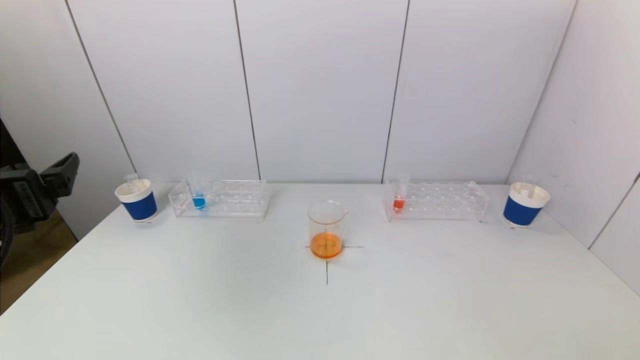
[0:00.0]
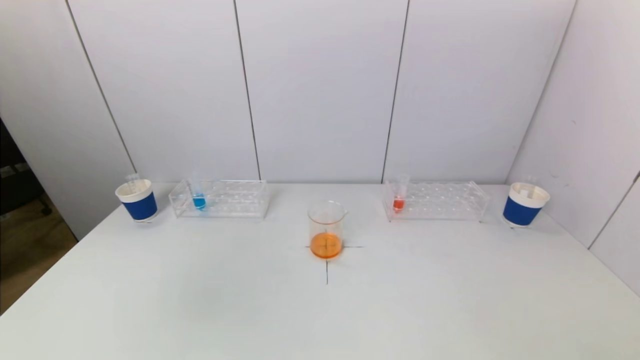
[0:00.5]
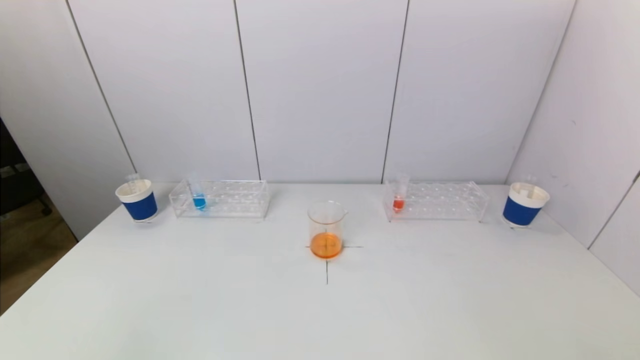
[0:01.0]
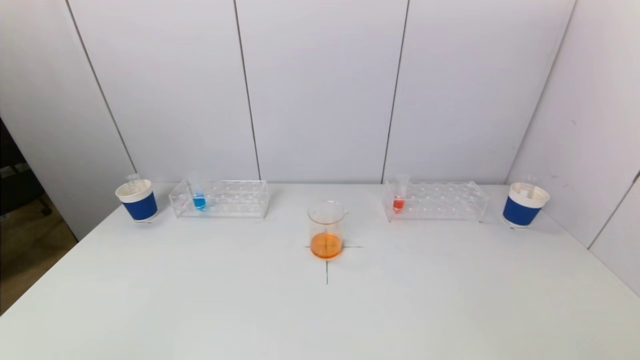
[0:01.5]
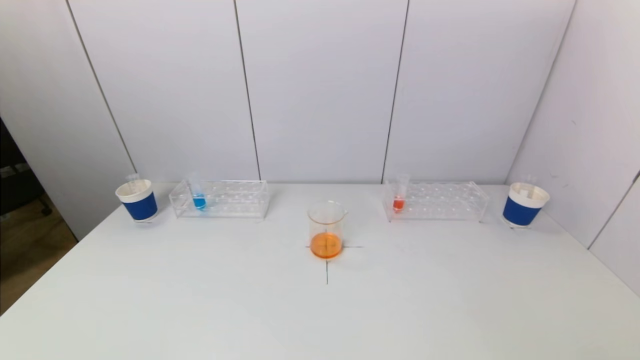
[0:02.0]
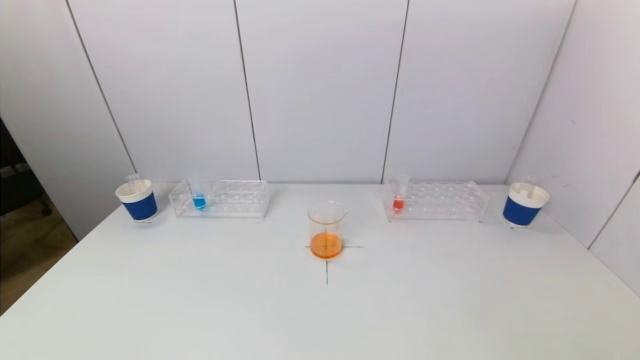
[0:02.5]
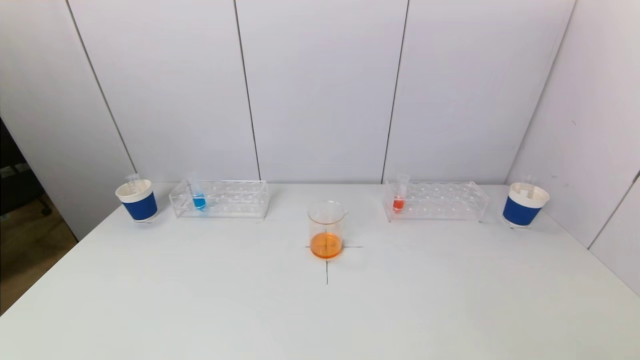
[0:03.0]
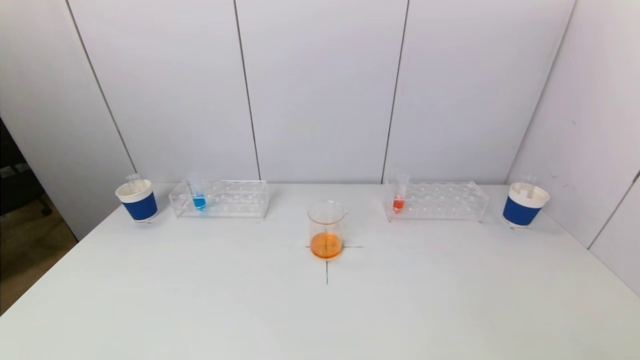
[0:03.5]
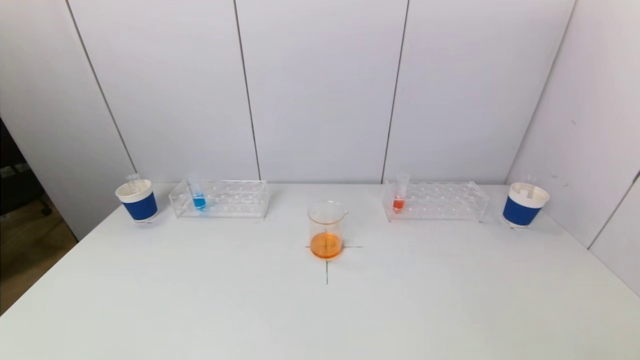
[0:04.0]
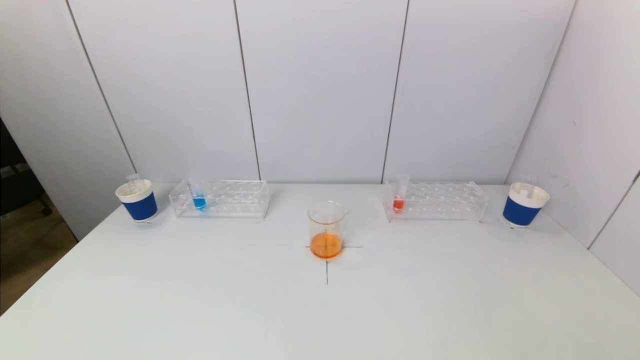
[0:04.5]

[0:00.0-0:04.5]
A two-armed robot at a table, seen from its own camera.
Task of the whole recording: pick up a test tube with pigment on left test tube rack and a test tube with pigment on right test tube rack by grippers and pour them into the beaker.
0:00.0 to 0:02.0: The left gripper moves backward and downward, about 20 cm.

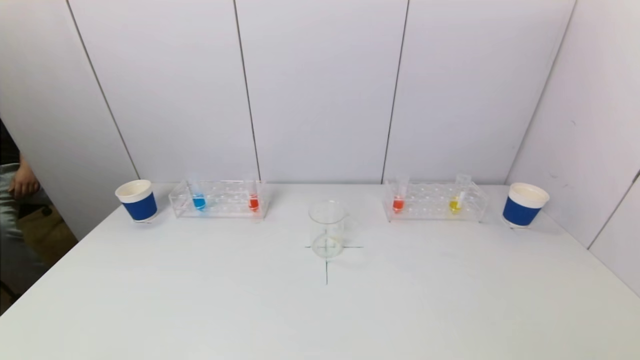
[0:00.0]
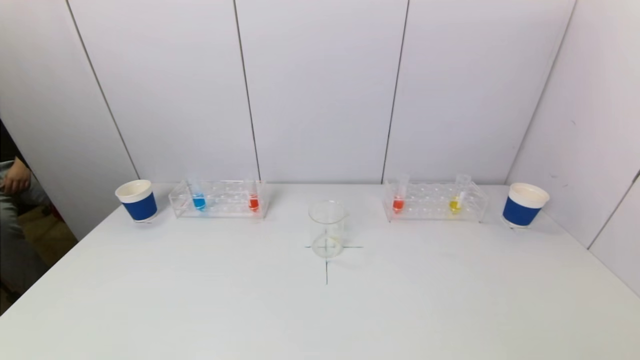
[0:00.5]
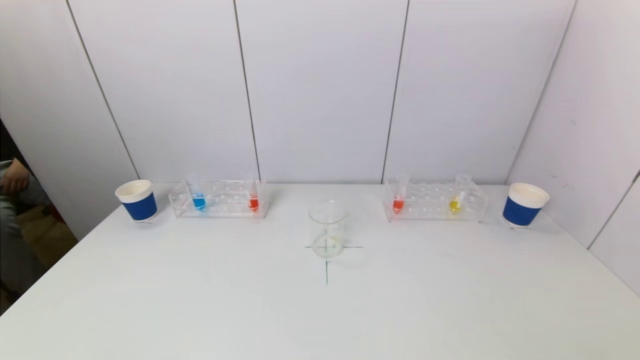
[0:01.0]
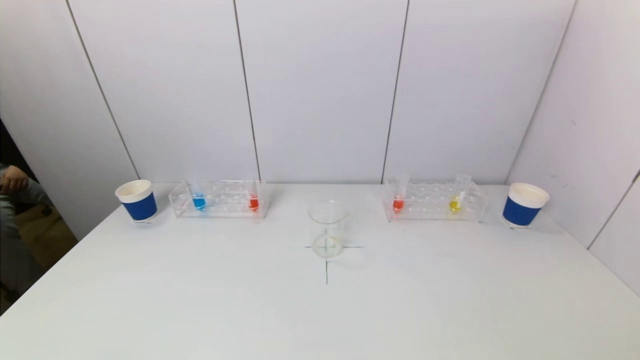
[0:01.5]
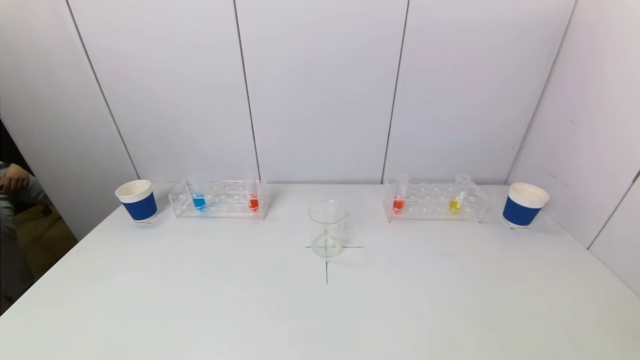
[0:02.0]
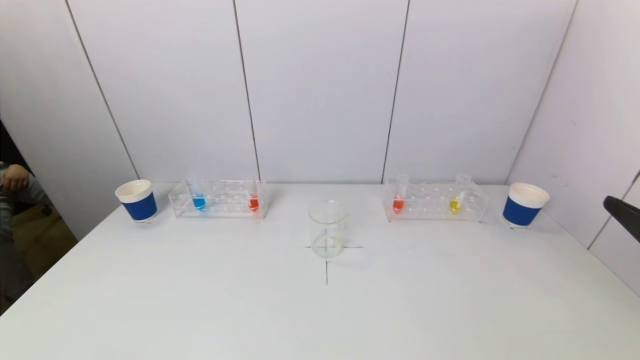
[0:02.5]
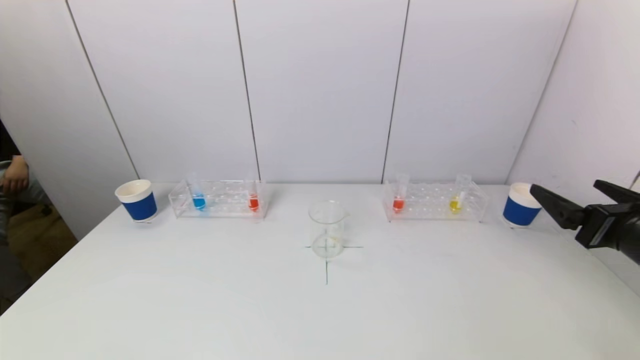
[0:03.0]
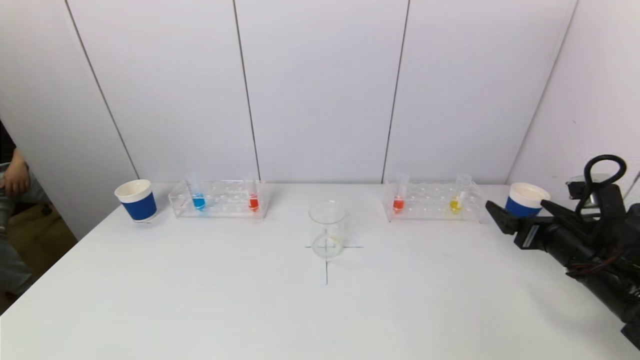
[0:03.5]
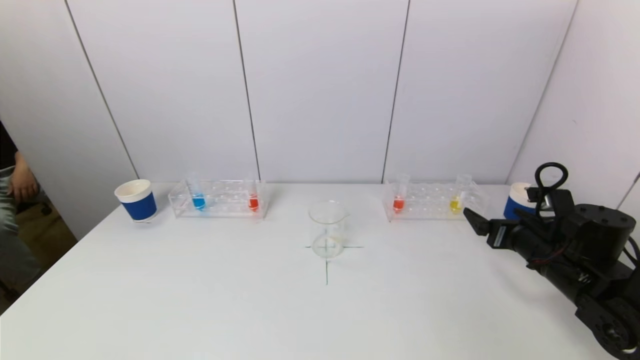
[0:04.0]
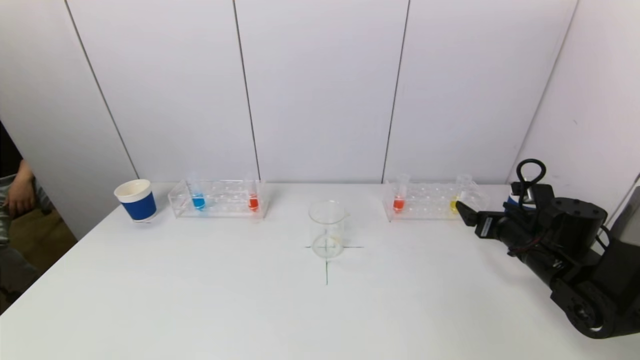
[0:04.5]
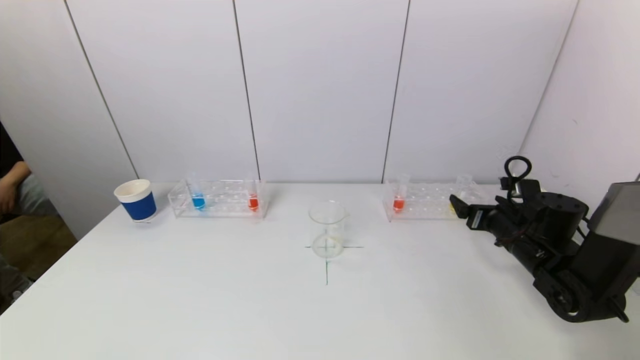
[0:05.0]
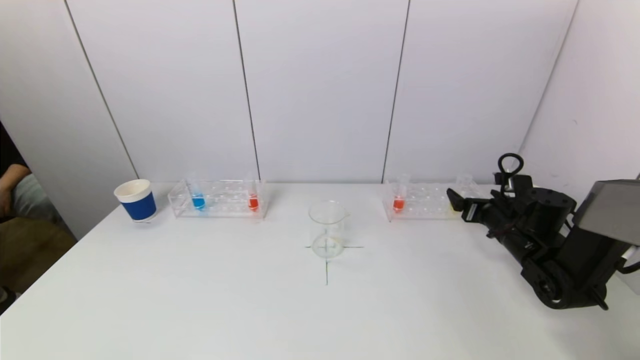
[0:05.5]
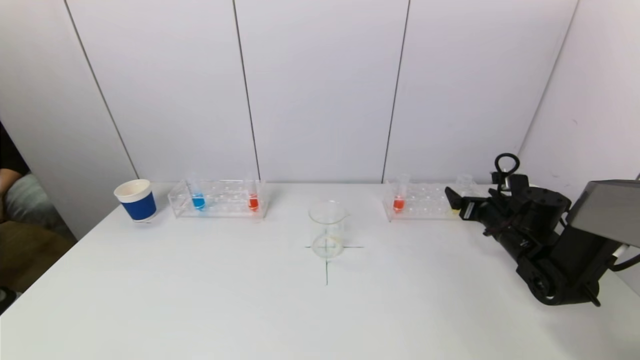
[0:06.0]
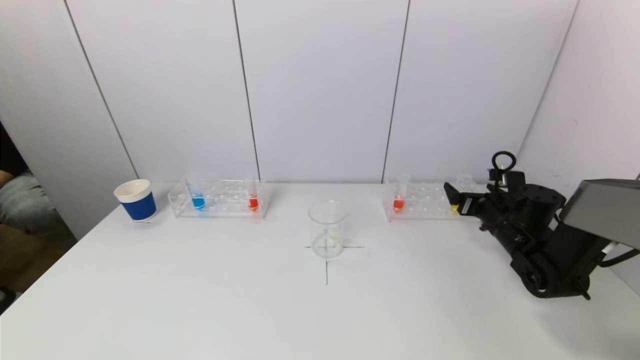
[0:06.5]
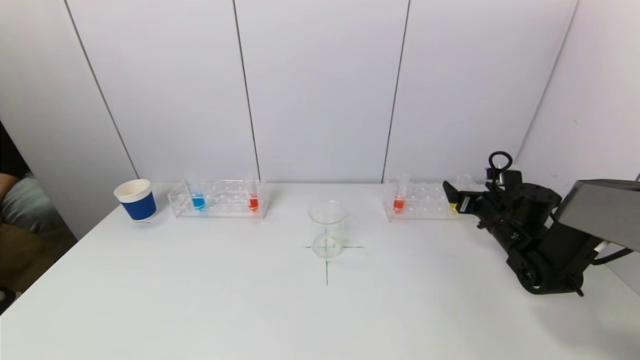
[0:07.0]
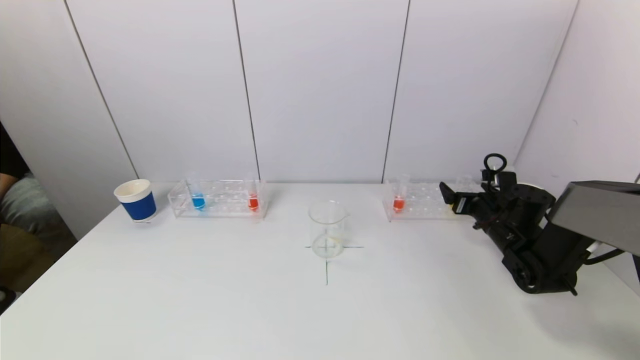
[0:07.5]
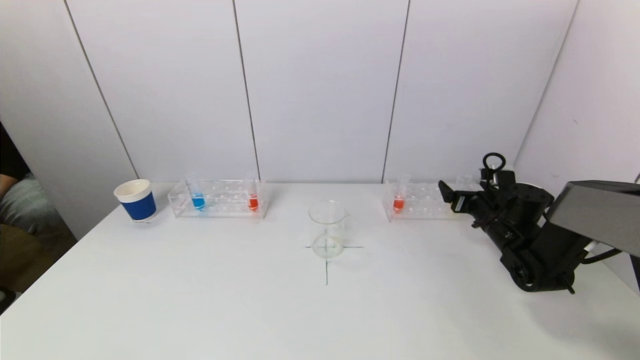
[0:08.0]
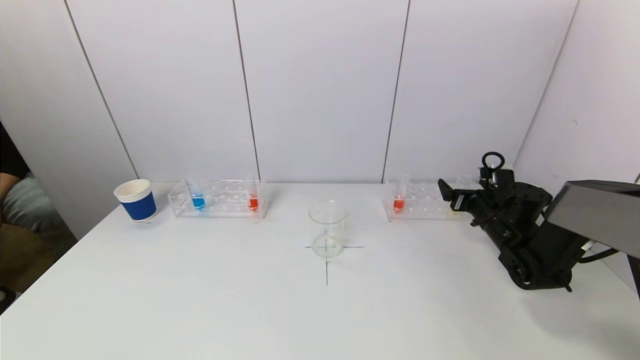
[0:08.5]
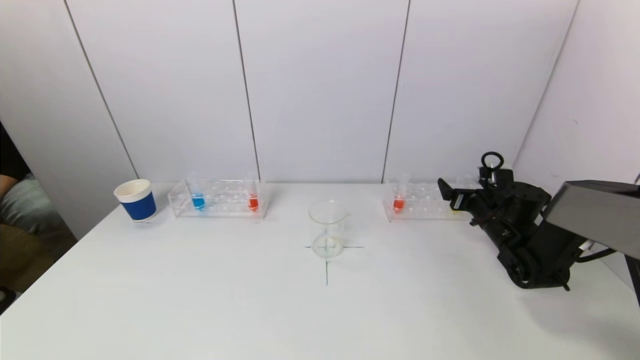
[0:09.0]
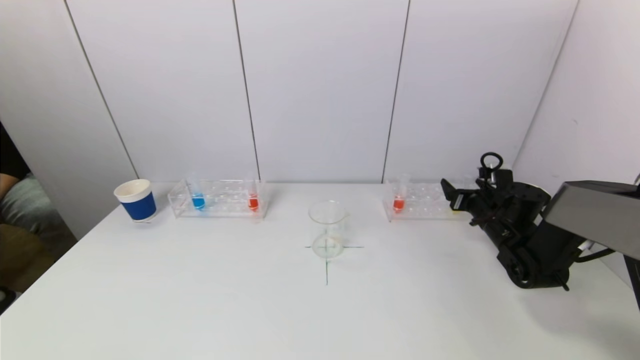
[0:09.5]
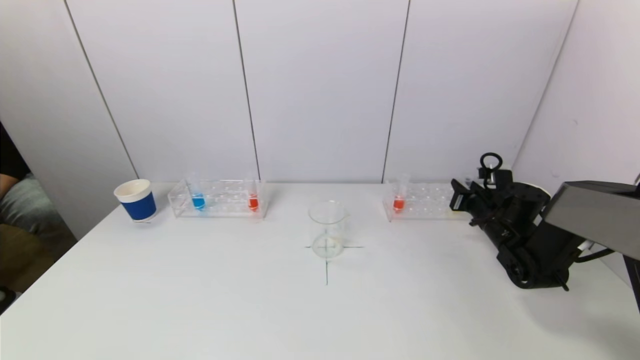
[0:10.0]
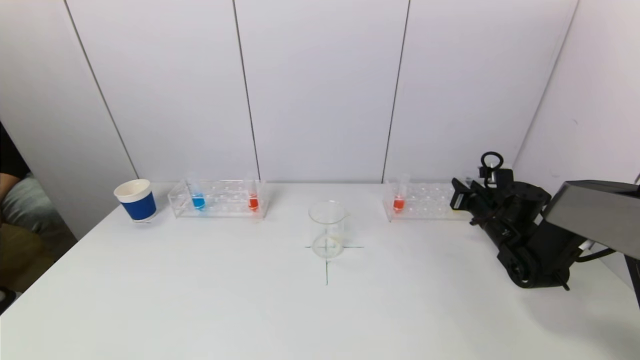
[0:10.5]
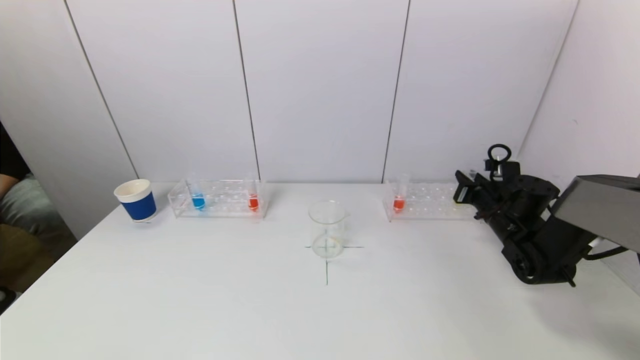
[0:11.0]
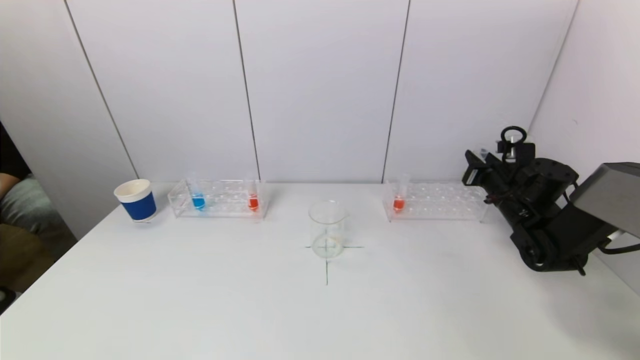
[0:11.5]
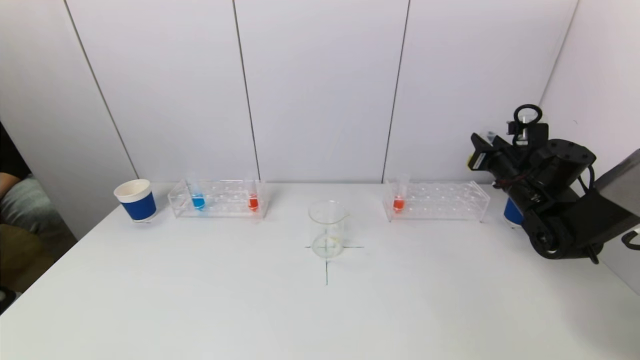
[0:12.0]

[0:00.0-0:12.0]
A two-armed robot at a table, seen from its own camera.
Task of the whole recording: pick up a test tube with pigment on left test tube rack and a test tube with pigment on right test tube rack by grippers and pour them into the beaker.
Step, 0:00.0 to 0:10.0: Grasp the yellow reagent with the right gripper.
0:02.0 to 0:04.0: The right gripper travels forward and downward by about 30 cm.
0:04.0 to 0:06.0: The right gripper shifts some 10 cm forward.
0:06.0 to 0:08.0: The grippers make only small movements.
0:08.0 to 0:10.0: The right gripper closes its fingers.
0:10.0 to 0:12.0: The right gripper goes some 10 cm upward.

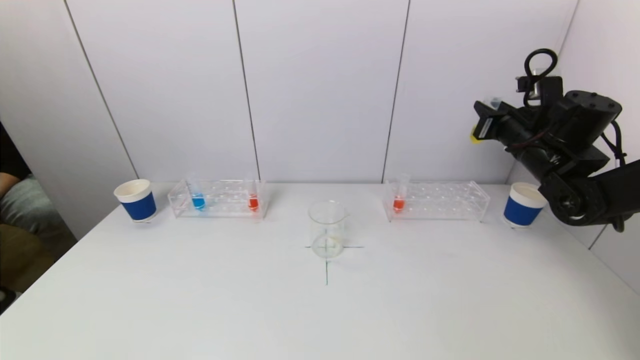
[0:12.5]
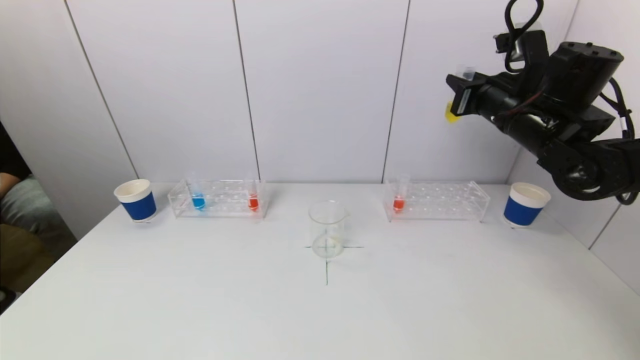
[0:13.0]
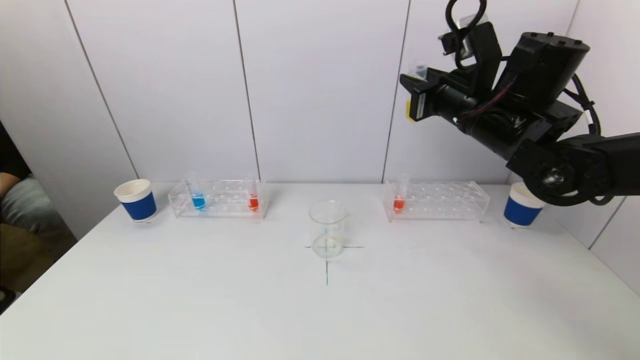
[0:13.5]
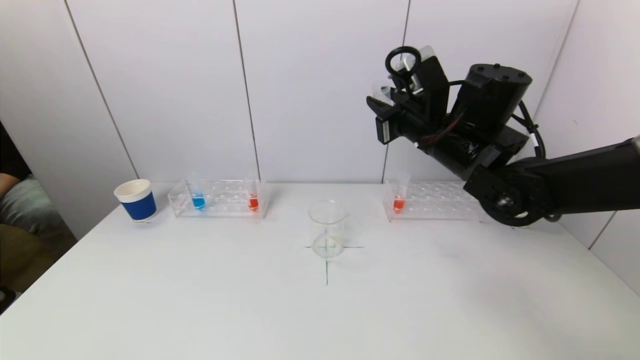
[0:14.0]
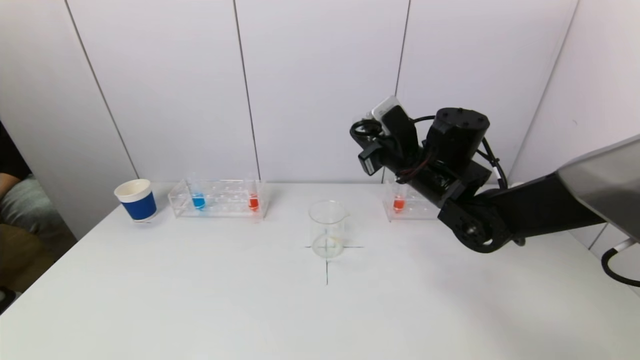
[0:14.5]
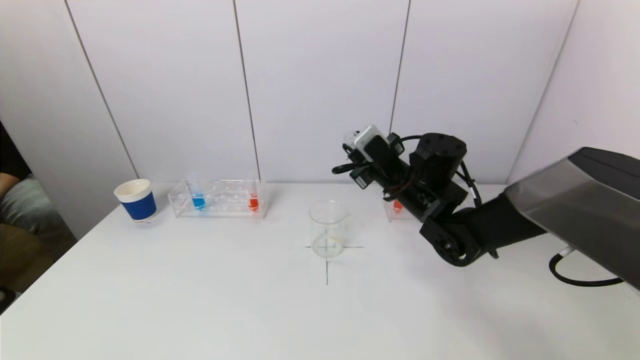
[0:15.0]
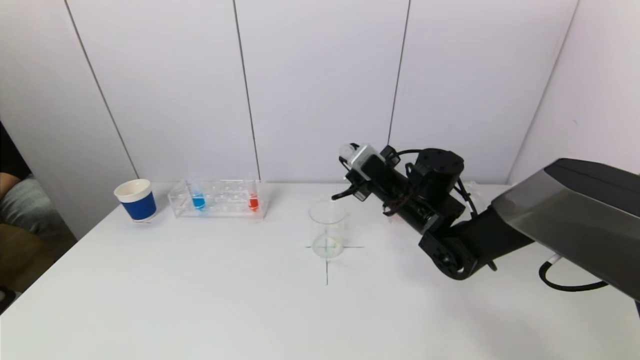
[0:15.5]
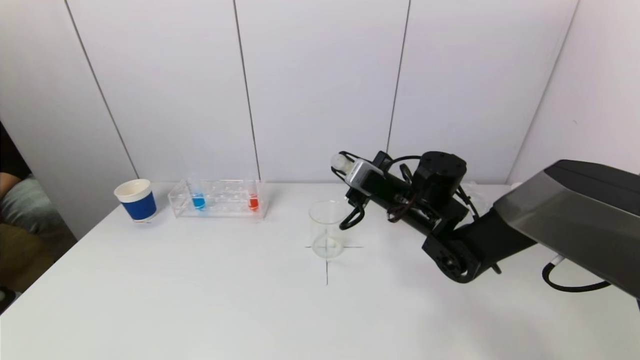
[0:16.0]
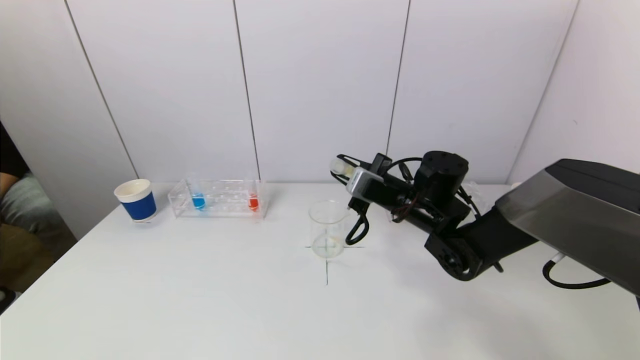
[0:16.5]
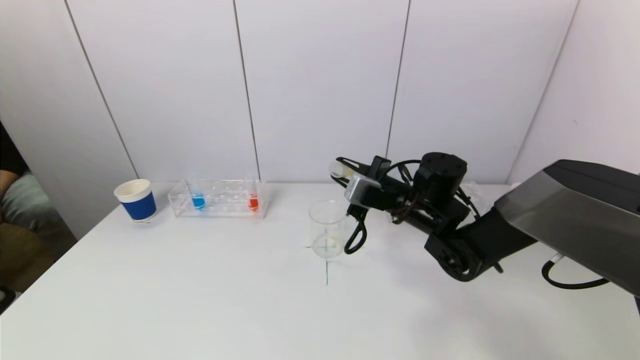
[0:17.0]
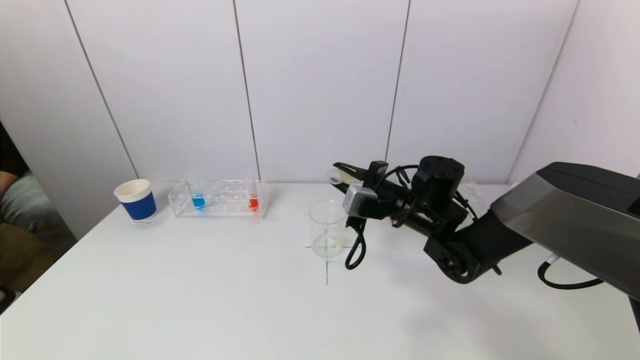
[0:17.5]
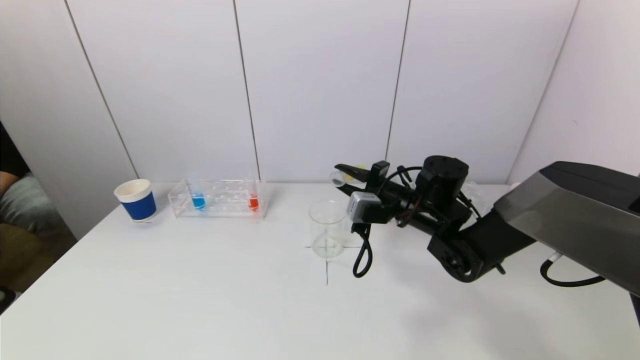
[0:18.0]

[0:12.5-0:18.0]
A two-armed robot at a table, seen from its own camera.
Task of the whole recording: pick up a test tube with pigment on left test tube rack and a test tube with pigment on right test tube rack by grippers and pour them into the beaker.
0:12.5 to 0:14.5: The right gripper heads to the left, covering roughly 20 cm.
0:14.5 to 0:16.0: The right gripper shifts some 5 cm downward.
